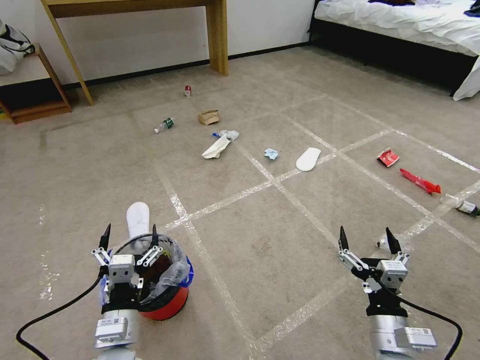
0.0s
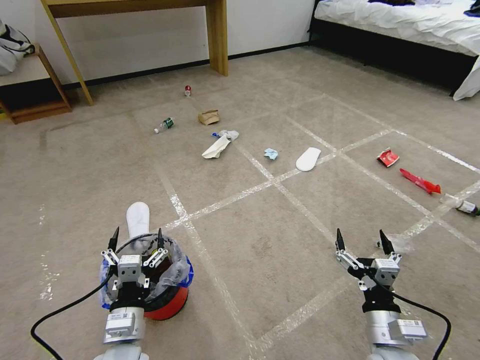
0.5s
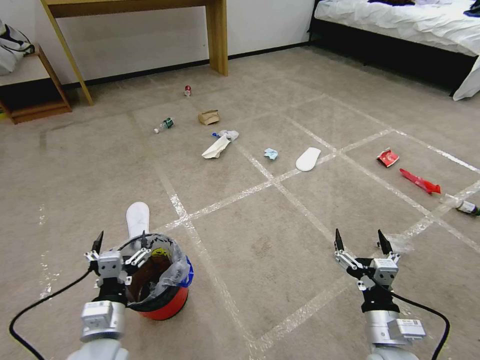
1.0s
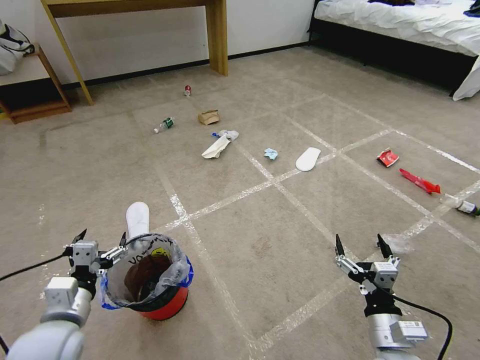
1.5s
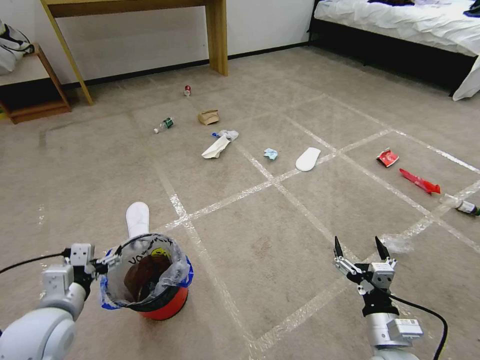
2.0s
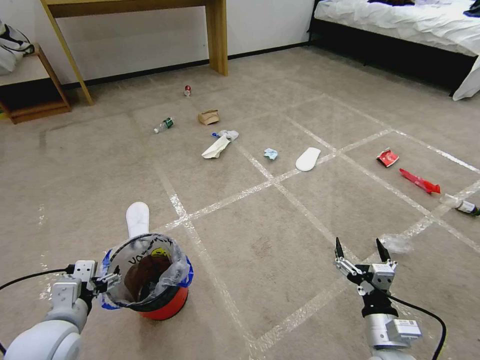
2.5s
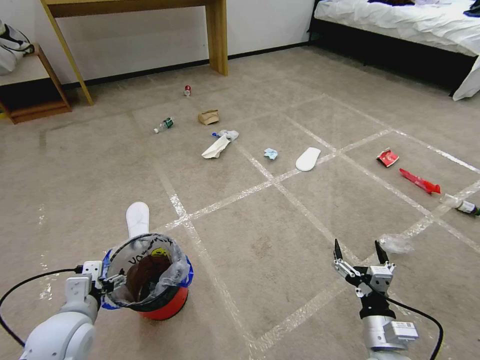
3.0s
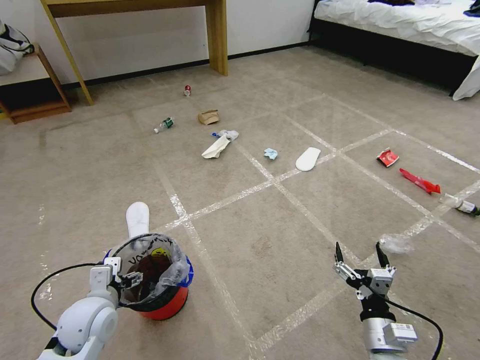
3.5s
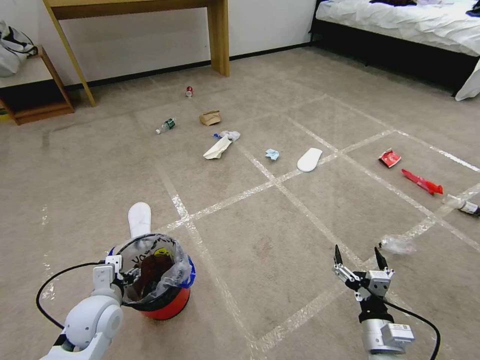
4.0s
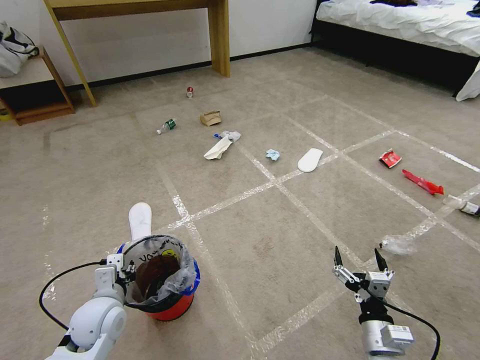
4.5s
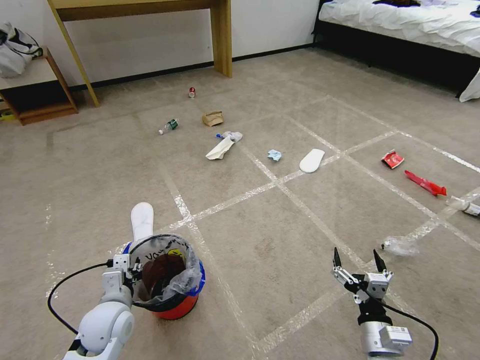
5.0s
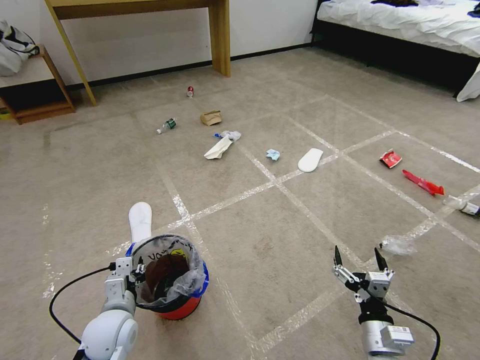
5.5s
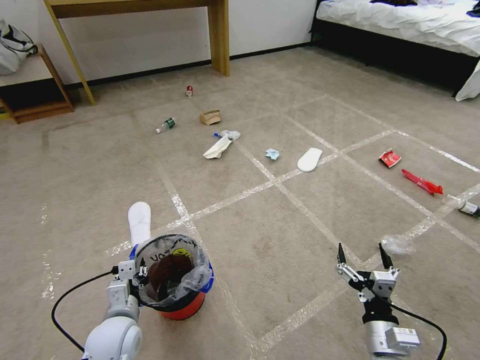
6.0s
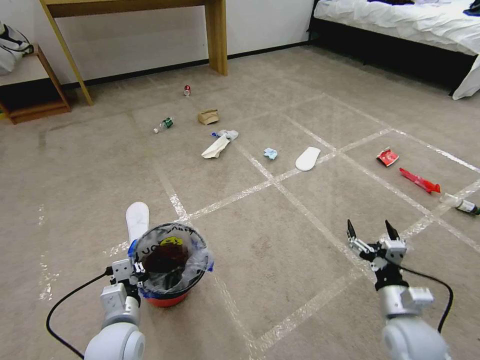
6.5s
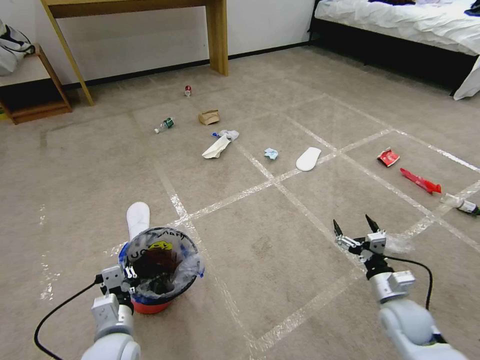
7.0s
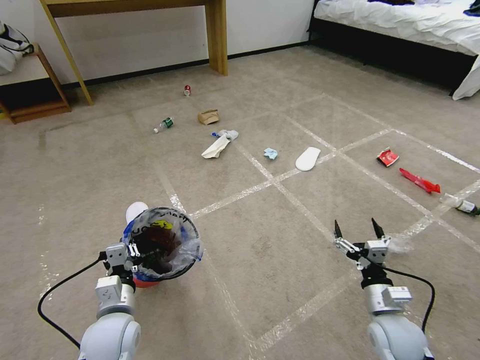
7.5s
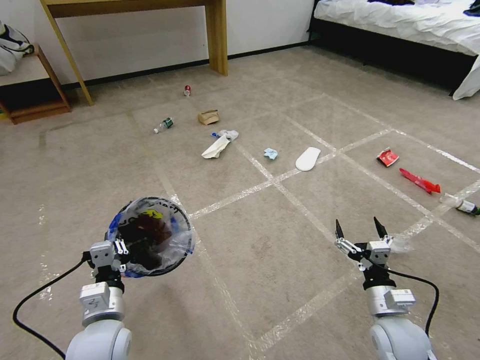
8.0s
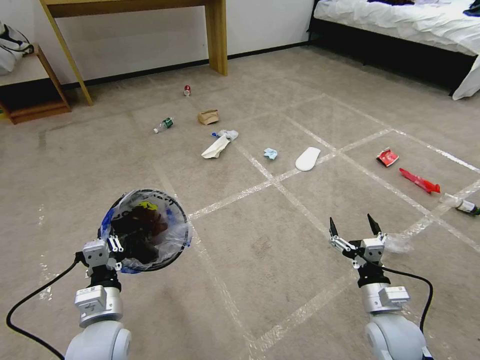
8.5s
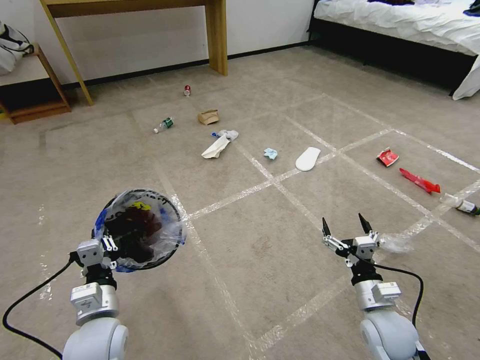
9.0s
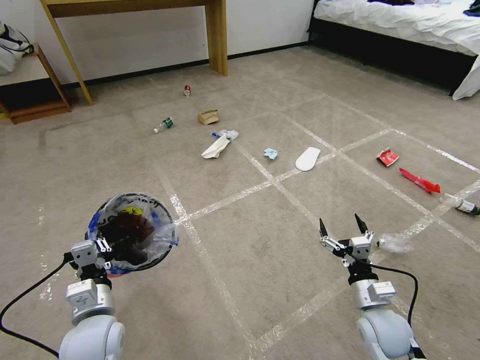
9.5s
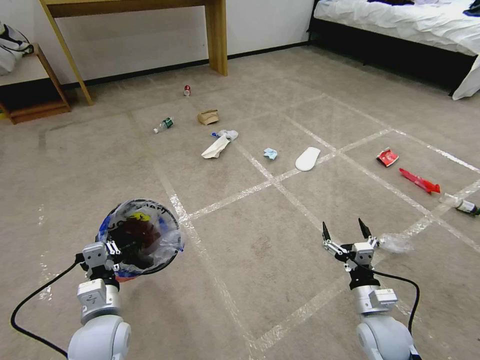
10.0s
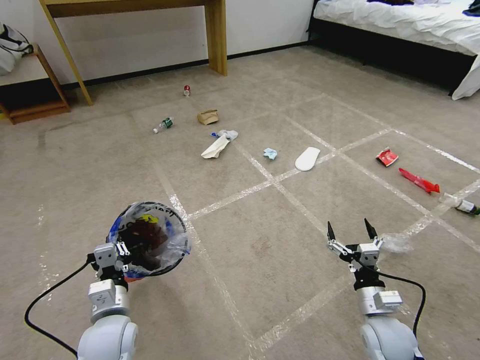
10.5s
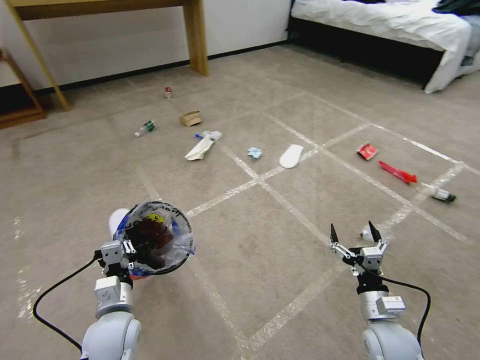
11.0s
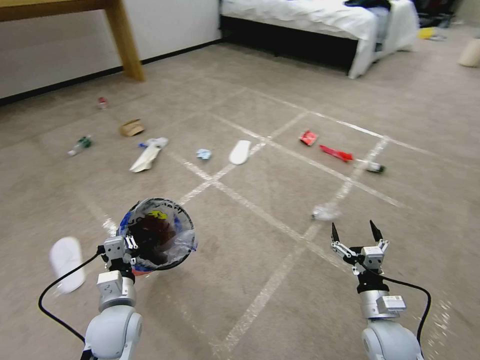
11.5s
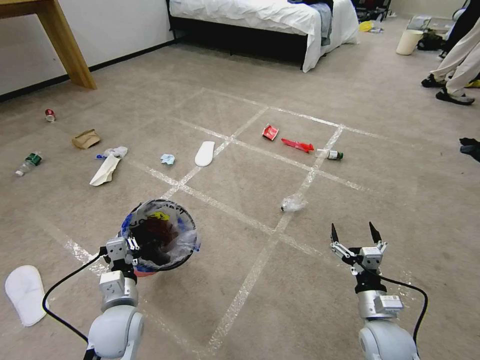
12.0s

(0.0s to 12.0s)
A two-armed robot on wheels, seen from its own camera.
Task of the whole recording: Pick up the trash bin and place the garbage on the floor into it.
2.0s - 4.0s: The left gripper heads downward, covering approximately 5 cm.
4.0s - 6.0s: The left gripper ends up some 5 cm from where it was, and closes up.
6.0s - 8.0s: The right gripper is displaced forward by approximately 5 cm, while the left gripper heads upward, covering roughly 5 cm.
8.0s - 10.0s: The grippers make only small movements.

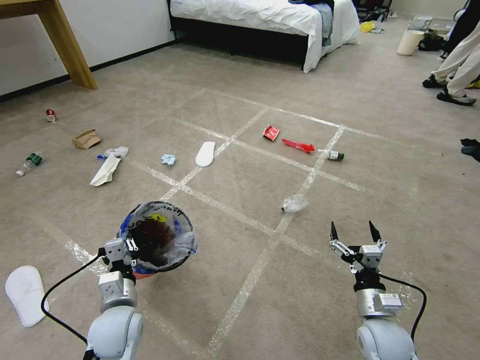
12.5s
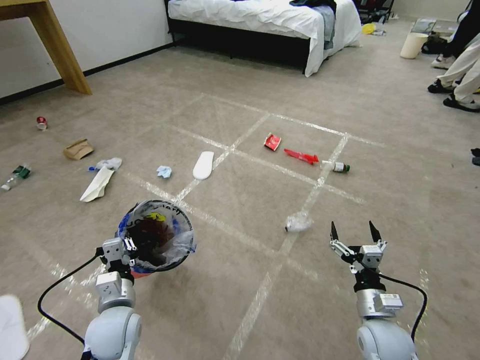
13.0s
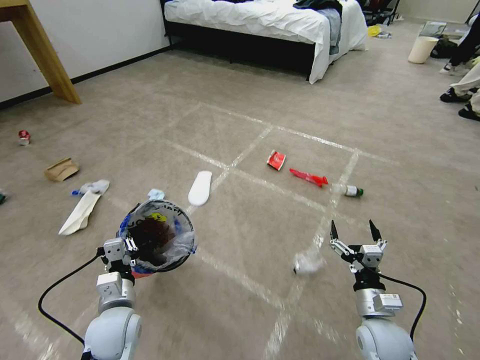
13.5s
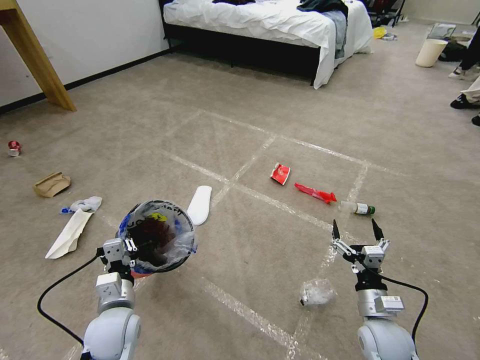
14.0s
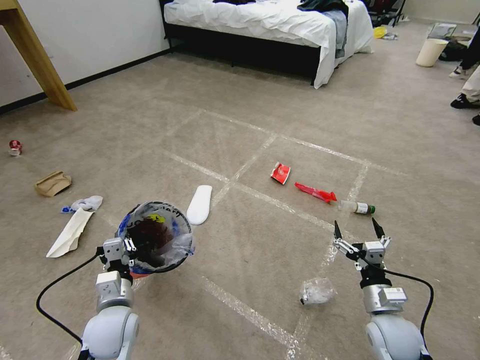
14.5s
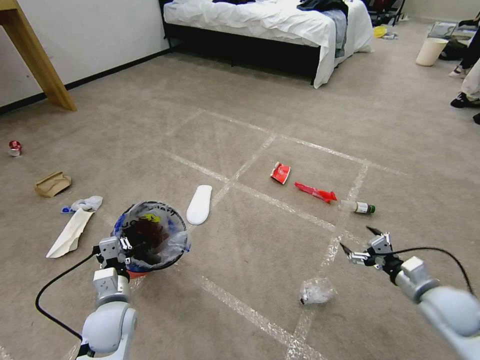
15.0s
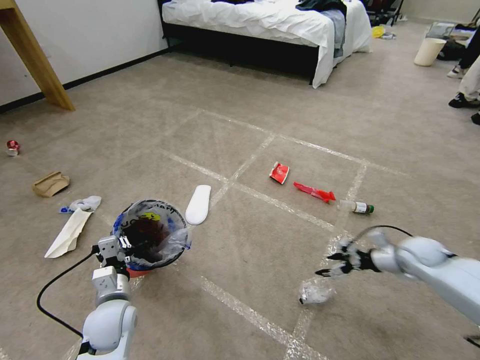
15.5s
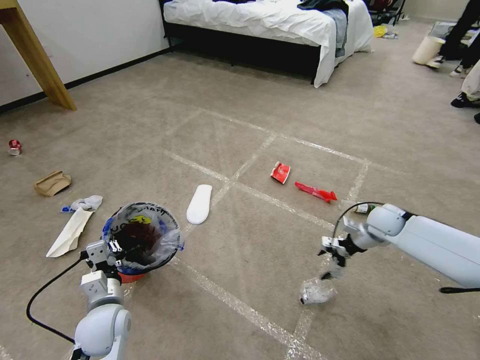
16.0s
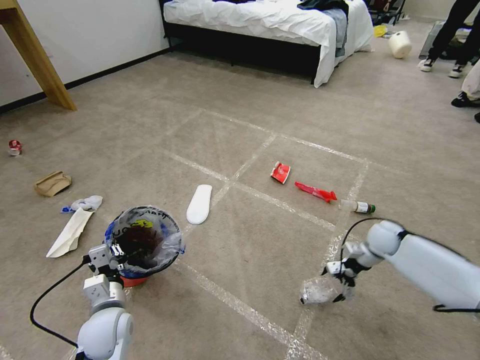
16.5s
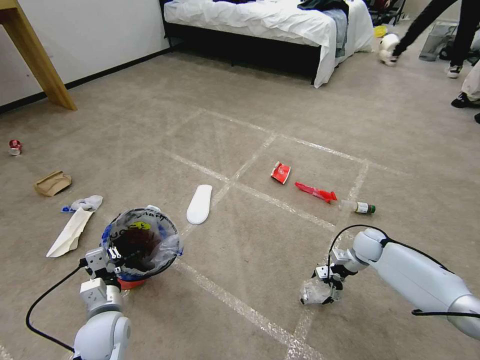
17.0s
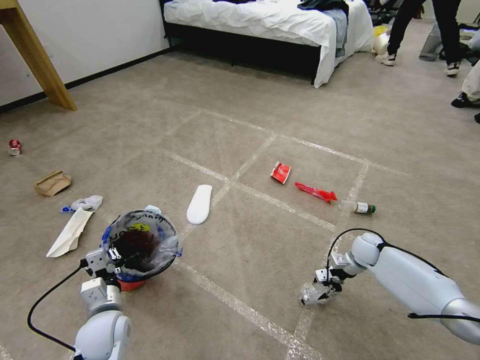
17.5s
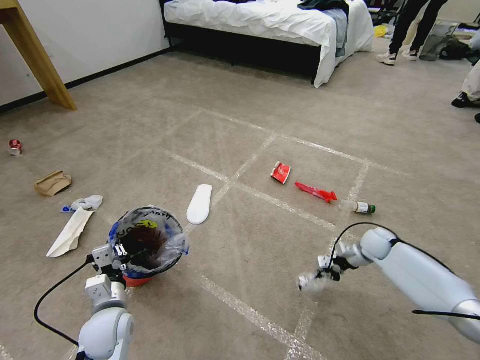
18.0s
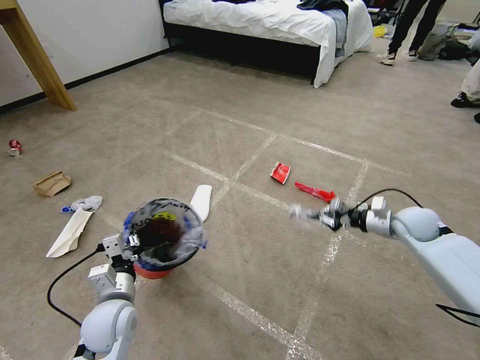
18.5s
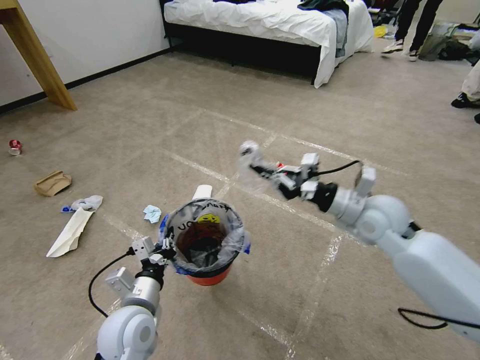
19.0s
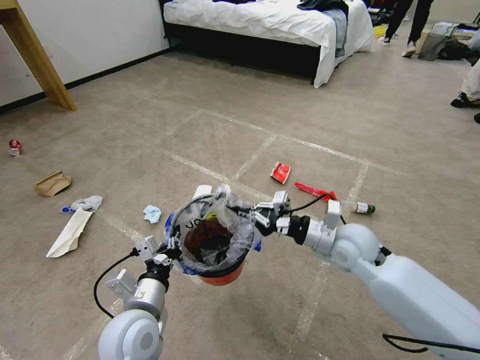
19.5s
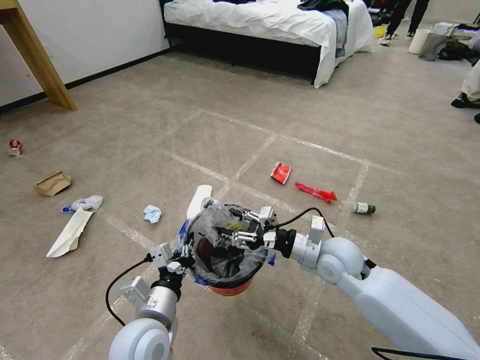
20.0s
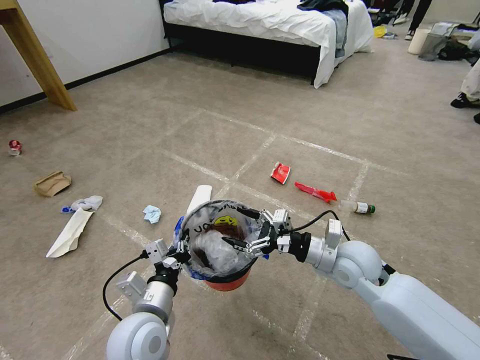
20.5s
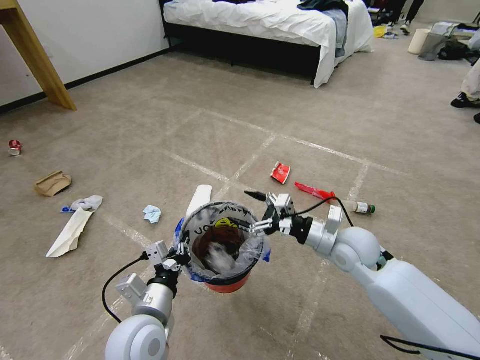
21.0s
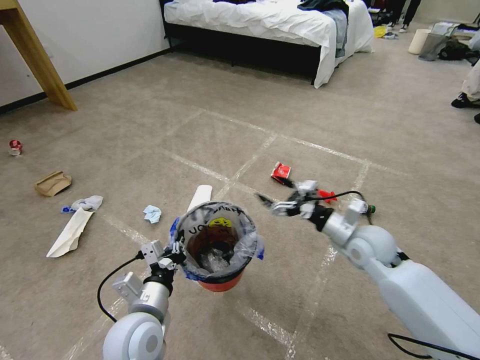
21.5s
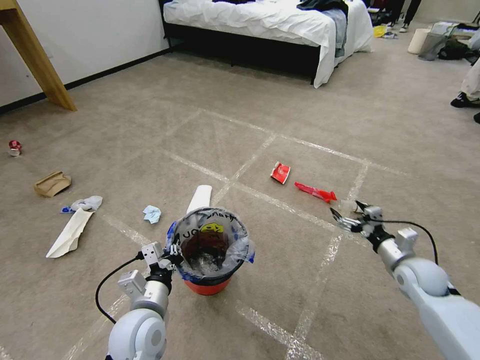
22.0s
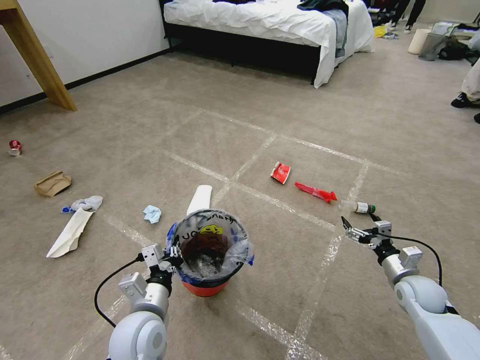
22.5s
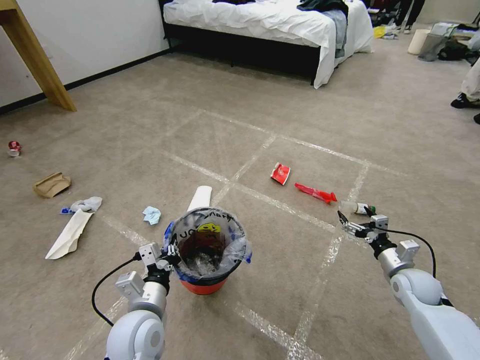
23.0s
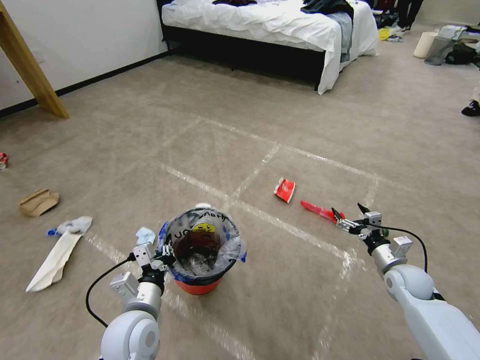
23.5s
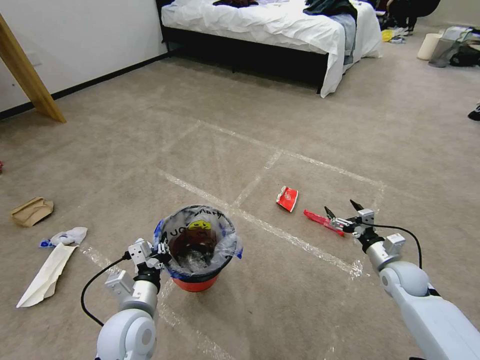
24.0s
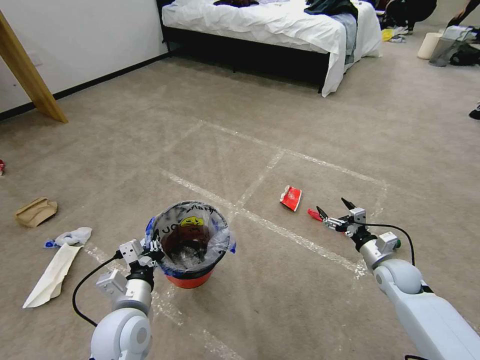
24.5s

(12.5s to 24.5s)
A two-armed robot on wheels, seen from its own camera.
Task of the whole recording: Pick up the trash bin and place the garbage on the floor into it.
14.5s - 16.5s: The right gripper moves forward and to the right, approximately 25 cm.
16.5s - 18.5s: The right gripper shifts approximately 5 cm upward, and closes its fingers.
18.5s - 20.5s: The right gripper moves to the left and backward, about 25 cm, and opens, while the left gripper moves to the right, approximately 10 cm.
20.5s - 22.5s: The right gripper goes some 25 cm to the right and downward.
22.5s - 24.5s: The right gripper moves about 5 cm.

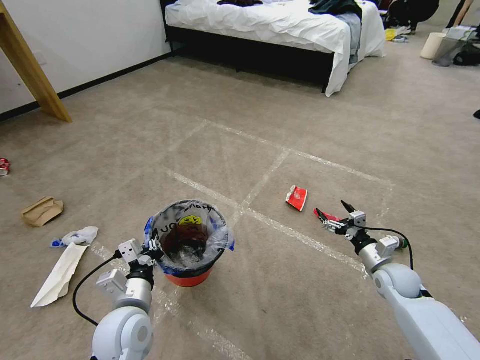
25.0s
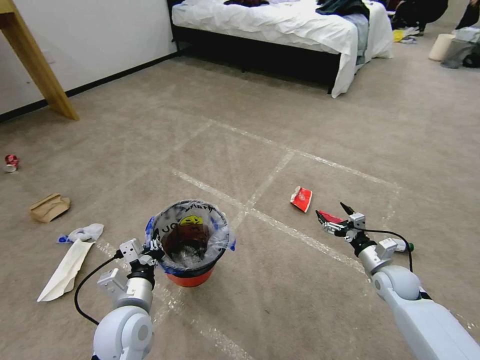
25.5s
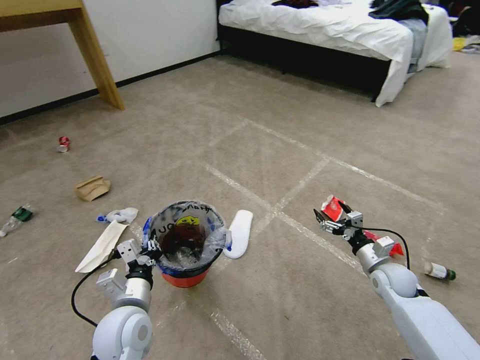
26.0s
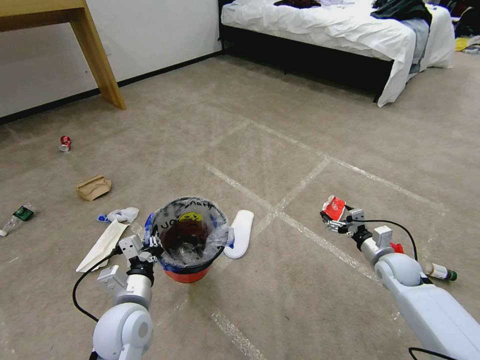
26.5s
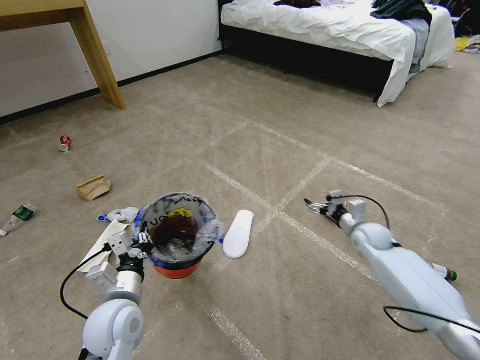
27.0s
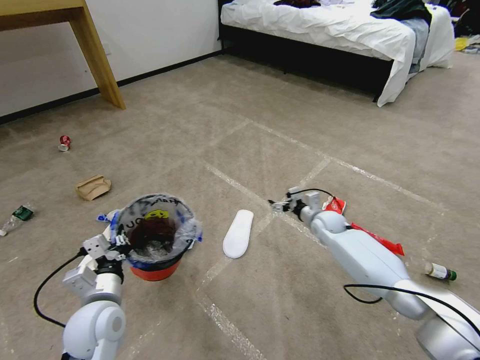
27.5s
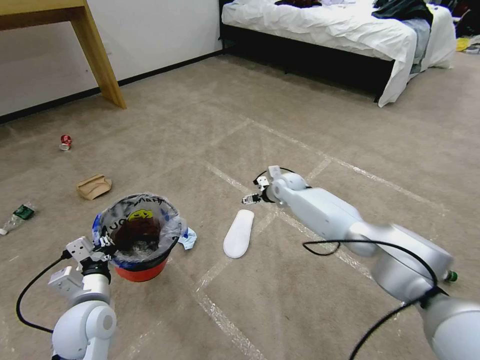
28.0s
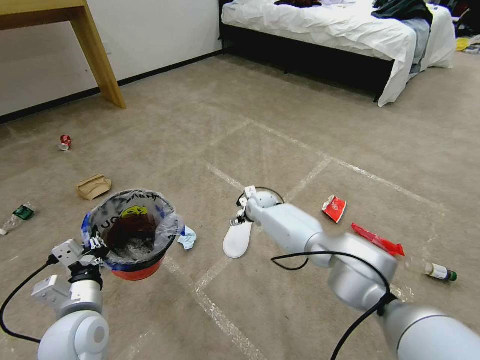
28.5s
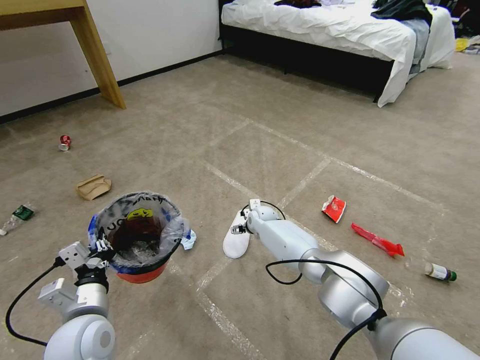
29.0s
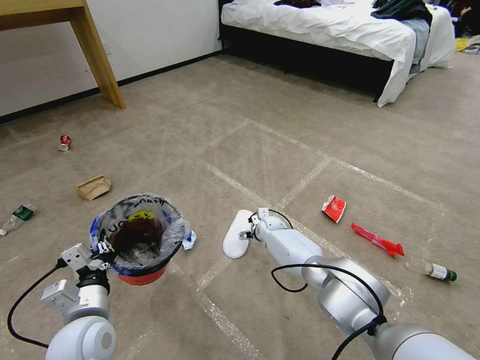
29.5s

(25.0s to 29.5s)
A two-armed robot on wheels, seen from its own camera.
Task of the whole recording: Pick up the trash bin and place the garbage on the floor into it.
25.0s - 27.0s: The right gripper heads forward, covering about 10 cm.
27.0s - 29.5s: The right gripper moves to the left, approximately 25 cm. The left gripper ends up about 5 cm from where it was.
